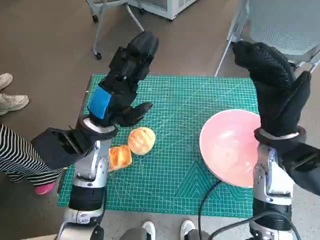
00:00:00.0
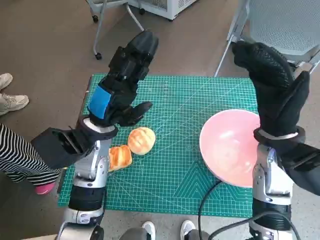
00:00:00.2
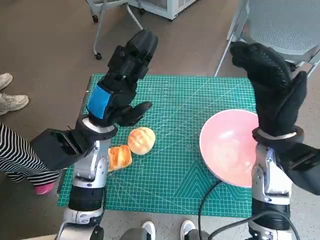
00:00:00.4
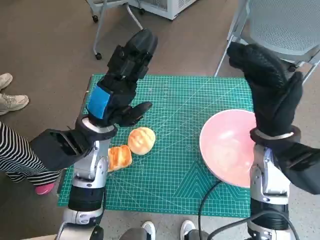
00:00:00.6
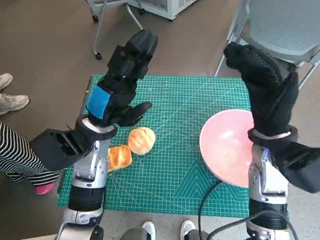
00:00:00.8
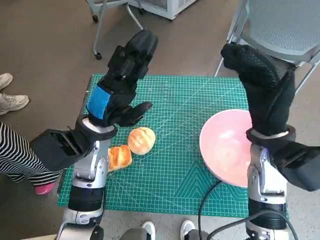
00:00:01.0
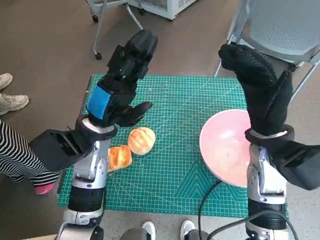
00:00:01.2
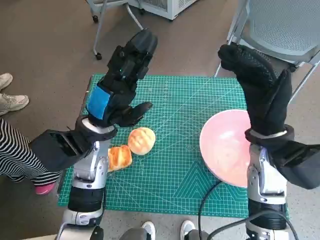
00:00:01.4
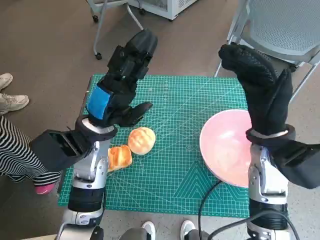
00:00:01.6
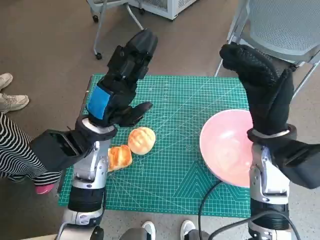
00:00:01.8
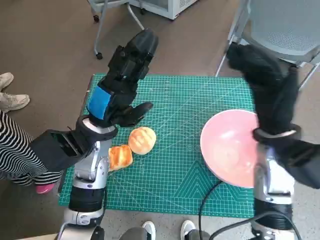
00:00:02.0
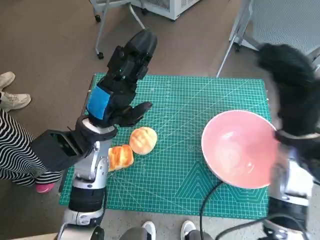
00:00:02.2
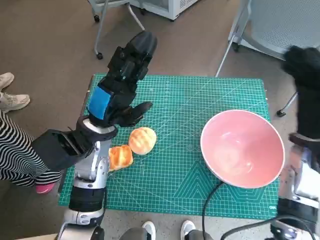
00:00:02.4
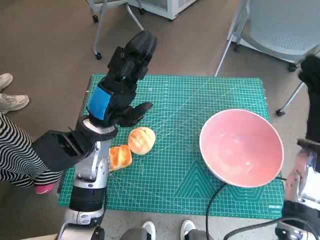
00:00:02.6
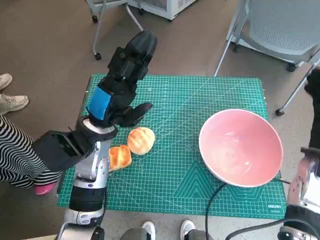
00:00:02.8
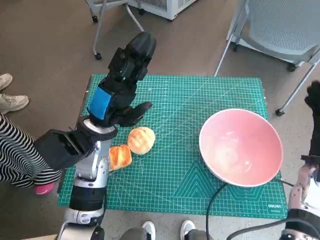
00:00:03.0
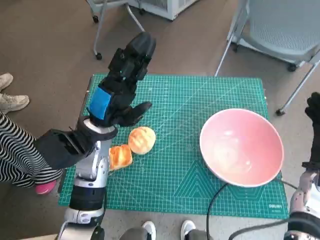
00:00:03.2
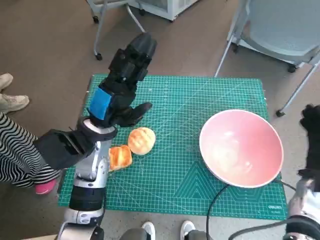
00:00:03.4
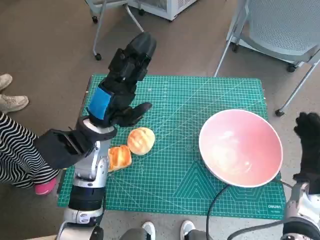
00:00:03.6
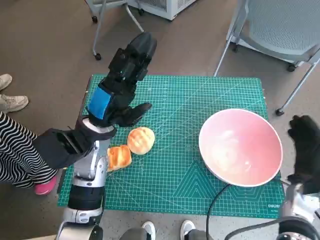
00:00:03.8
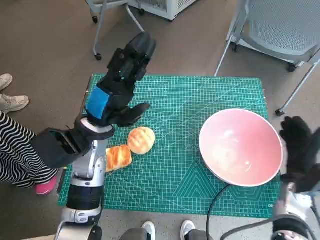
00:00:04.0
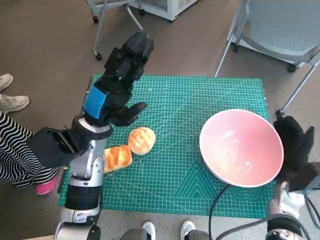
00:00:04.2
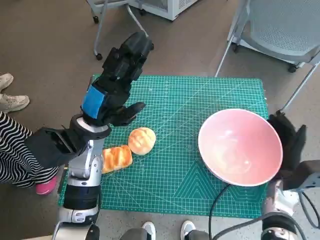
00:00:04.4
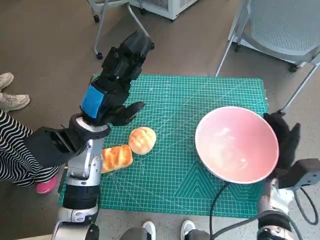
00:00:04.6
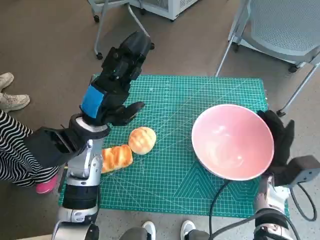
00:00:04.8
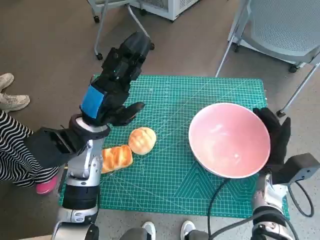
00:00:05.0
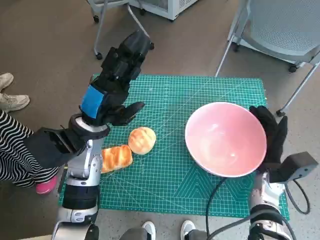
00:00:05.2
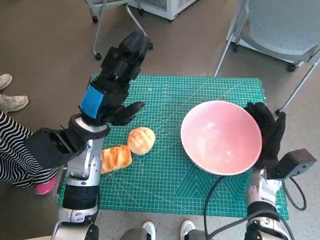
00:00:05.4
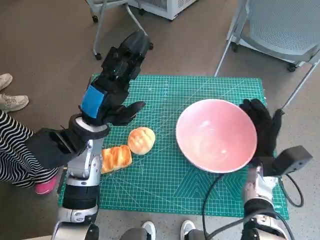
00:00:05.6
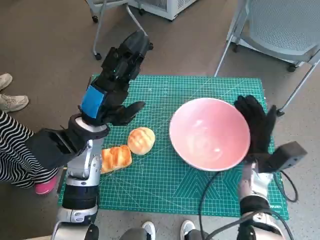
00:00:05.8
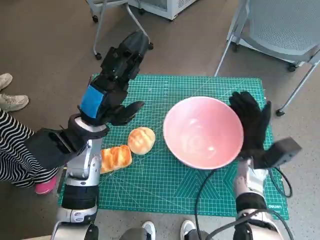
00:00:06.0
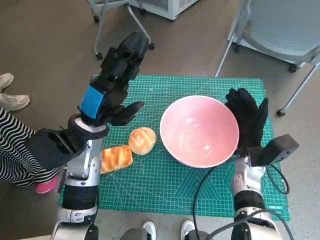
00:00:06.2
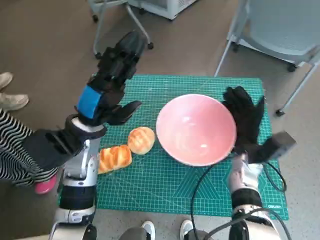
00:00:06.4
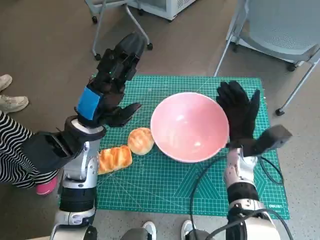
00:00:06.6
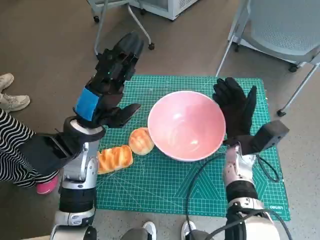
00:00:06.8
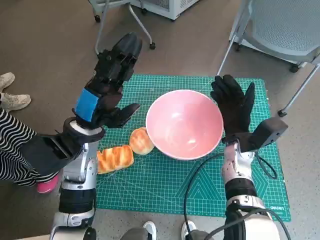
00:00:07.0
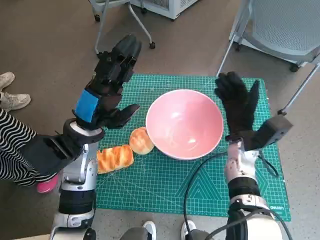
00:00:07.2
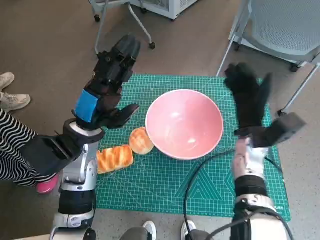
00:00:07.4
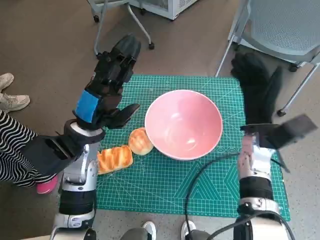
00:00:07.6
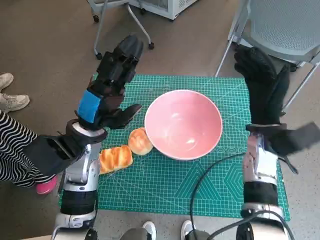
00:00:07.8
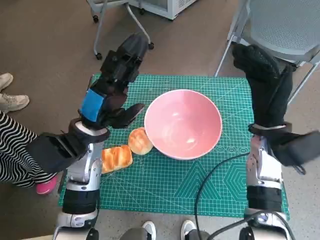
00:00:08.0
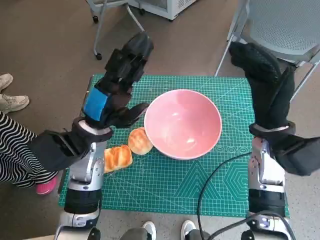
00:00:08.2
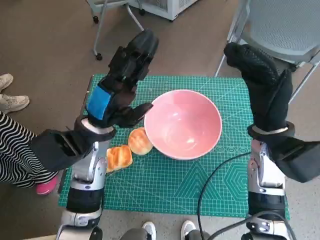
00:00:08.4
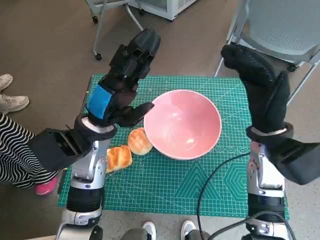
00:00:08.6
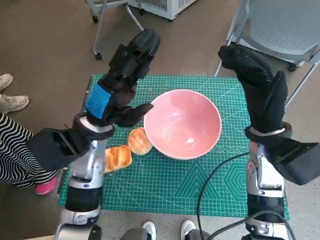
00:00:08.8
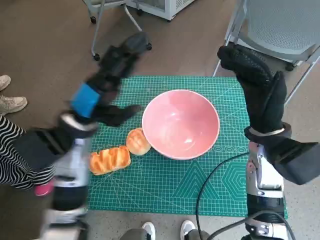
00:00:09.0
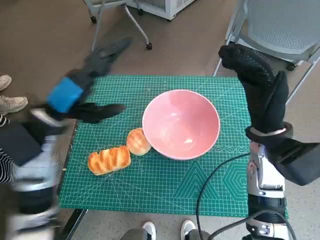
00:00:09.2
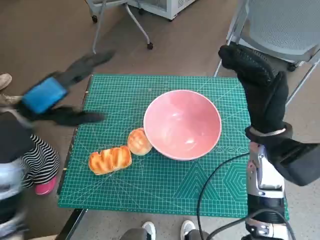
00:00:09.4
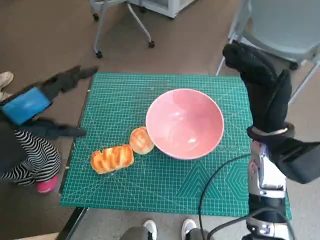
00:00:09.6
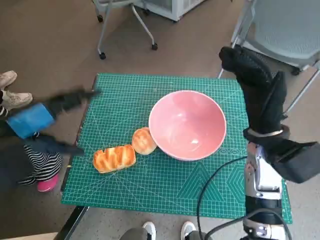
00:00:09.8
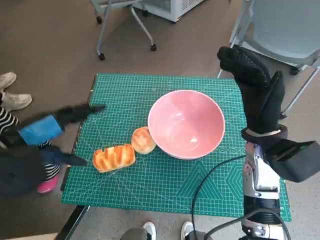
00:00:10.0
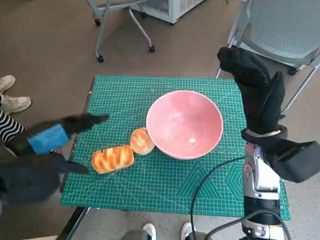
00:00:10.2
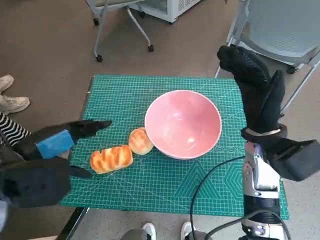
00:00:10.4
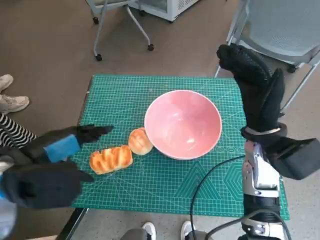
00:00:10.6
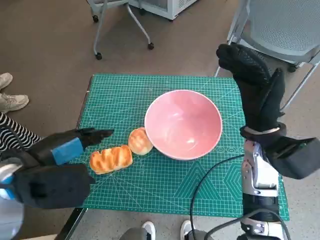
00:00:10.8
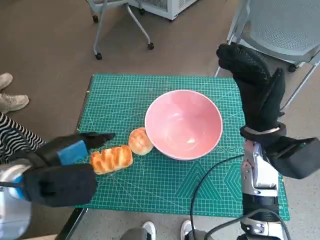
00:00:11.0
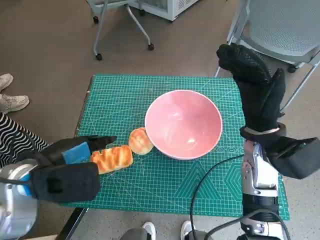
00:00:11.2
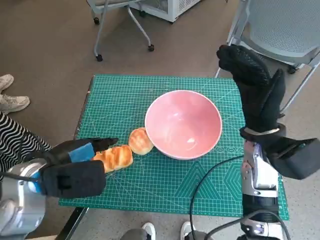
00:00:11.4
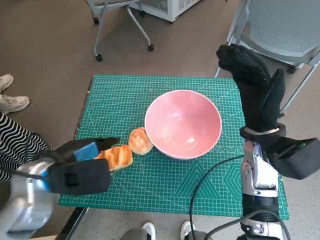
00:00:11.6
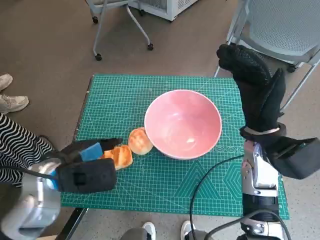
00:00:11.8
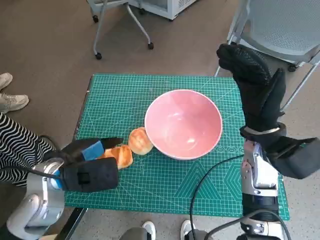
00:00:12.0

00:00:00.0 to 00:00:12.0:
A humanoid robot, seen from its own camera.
Task of the whole recording: Push the bowl into the center of the table and put the bread into the bowl.
Step, 00:00:00.0 to 00:00:07.4: Move the pink bowl to the center of table with right hand.
00:00:01.6 to 00:00:03.0: The right hand goes approximately 15 cm to the right and downward.
00:00:03.0 to 00:00:04.4: The right hand goes approximately 10 cm downward.
00:00:04.4 to 00:00:06.0: The right hand goes some 5 cm to the left.
00:00:06.0 to 00:00:07.6: The right hand is displaced upward by some 5 cm.
00:00:07.6 to 00:00:09.0: The right hand goes approximately 5 cm upward.
00:00:09.0 to 00:00:10.4: The left hand shifts some 15 cm backward, to the left and upward.
00:00:10.4 to 00:00:12.0: The left hand shifts about 10 cm downward.

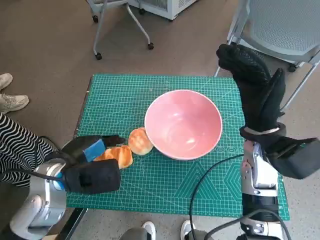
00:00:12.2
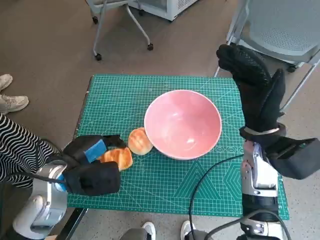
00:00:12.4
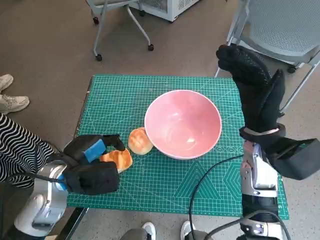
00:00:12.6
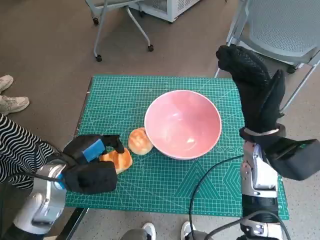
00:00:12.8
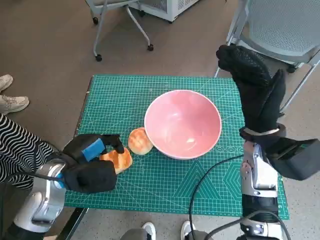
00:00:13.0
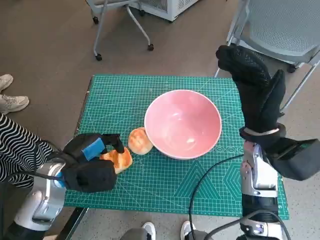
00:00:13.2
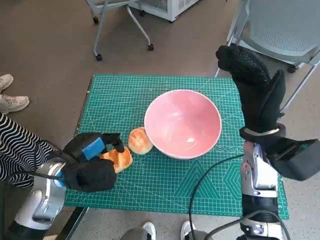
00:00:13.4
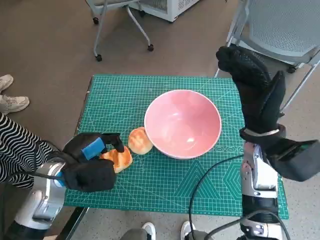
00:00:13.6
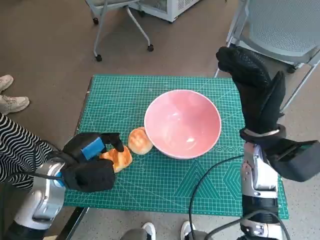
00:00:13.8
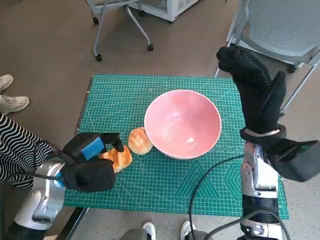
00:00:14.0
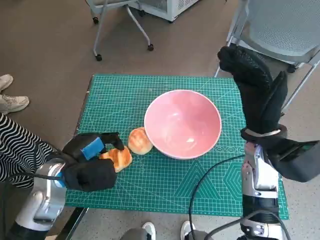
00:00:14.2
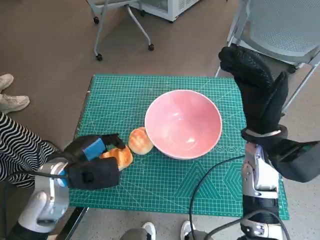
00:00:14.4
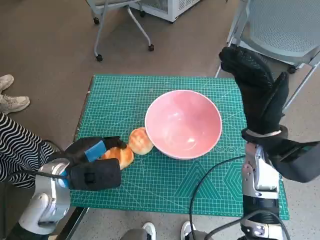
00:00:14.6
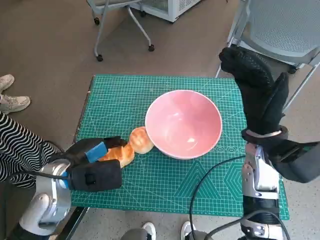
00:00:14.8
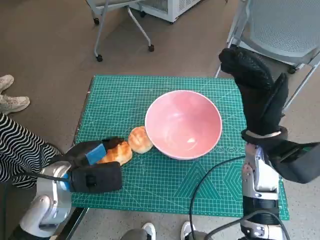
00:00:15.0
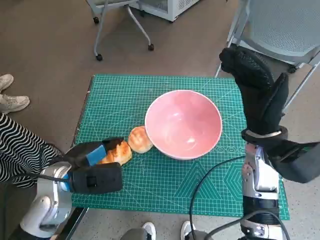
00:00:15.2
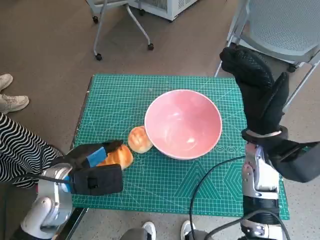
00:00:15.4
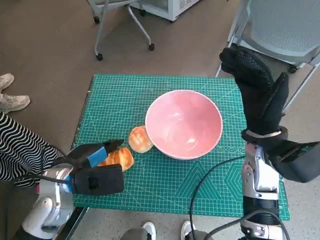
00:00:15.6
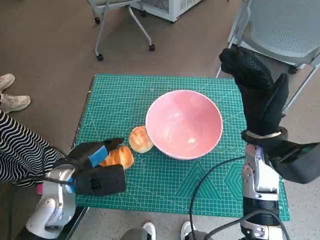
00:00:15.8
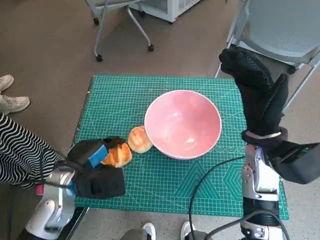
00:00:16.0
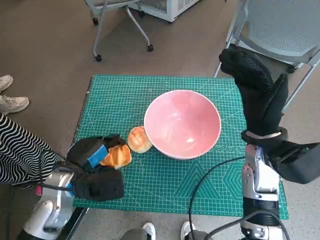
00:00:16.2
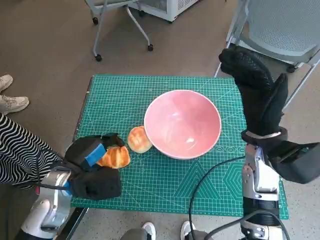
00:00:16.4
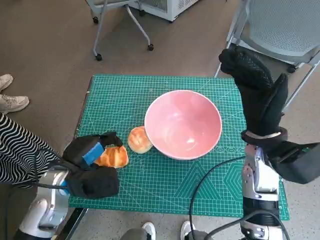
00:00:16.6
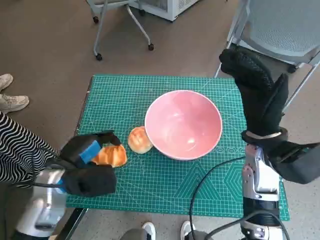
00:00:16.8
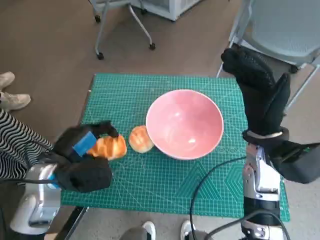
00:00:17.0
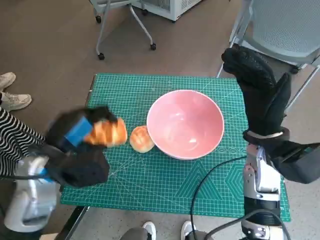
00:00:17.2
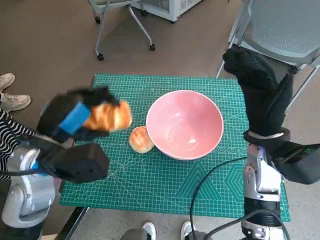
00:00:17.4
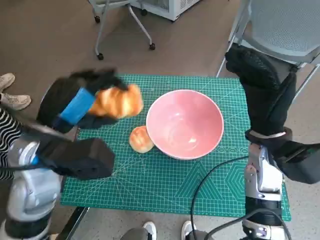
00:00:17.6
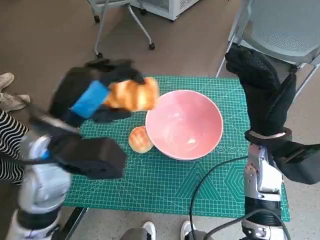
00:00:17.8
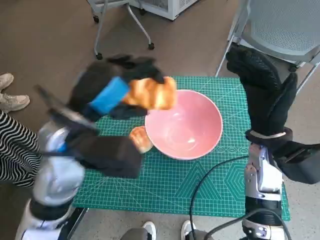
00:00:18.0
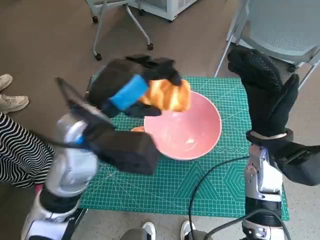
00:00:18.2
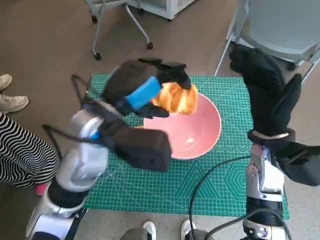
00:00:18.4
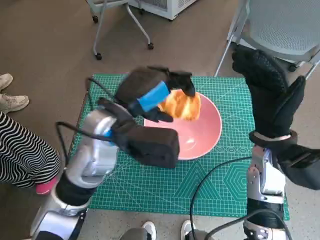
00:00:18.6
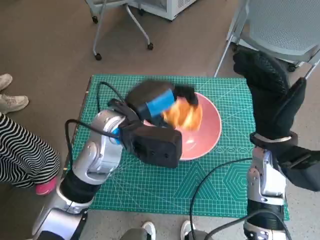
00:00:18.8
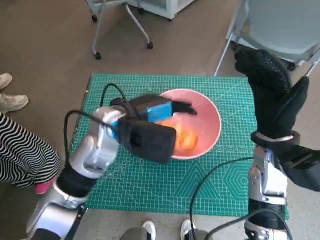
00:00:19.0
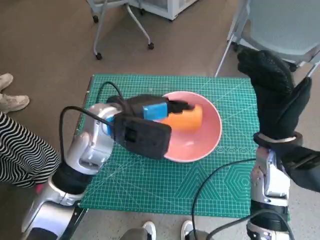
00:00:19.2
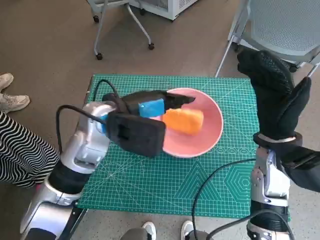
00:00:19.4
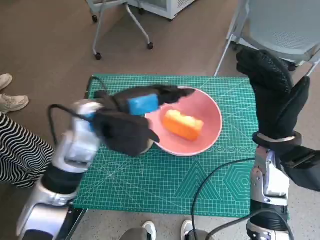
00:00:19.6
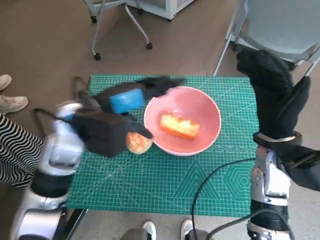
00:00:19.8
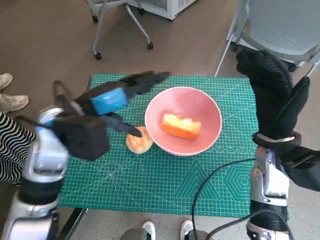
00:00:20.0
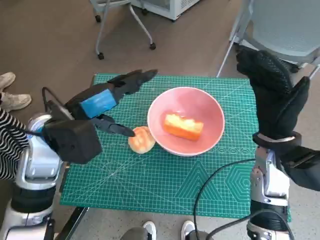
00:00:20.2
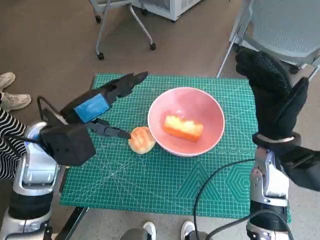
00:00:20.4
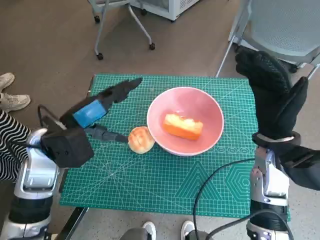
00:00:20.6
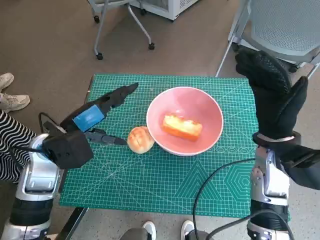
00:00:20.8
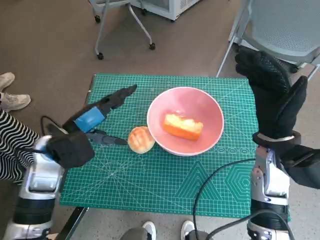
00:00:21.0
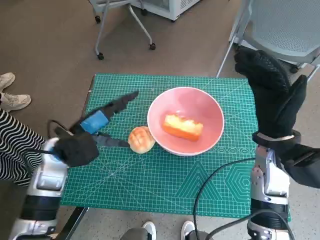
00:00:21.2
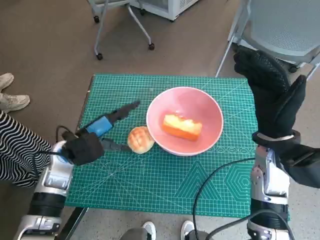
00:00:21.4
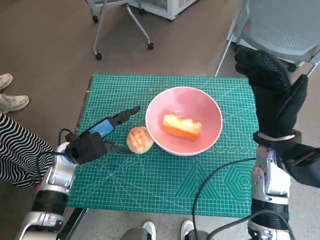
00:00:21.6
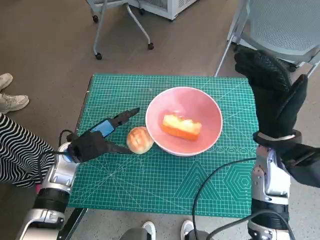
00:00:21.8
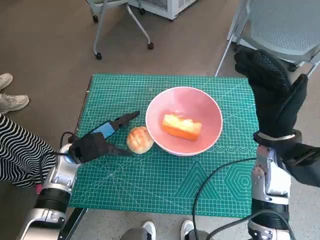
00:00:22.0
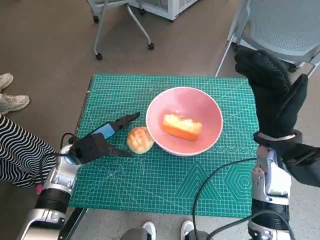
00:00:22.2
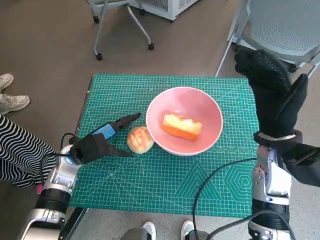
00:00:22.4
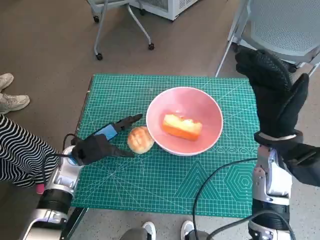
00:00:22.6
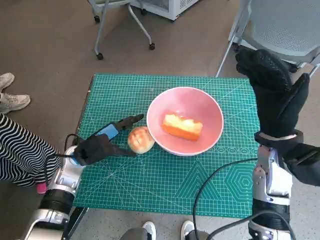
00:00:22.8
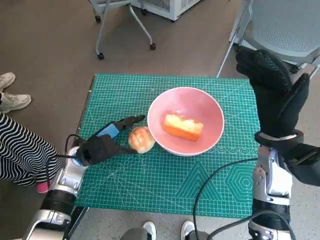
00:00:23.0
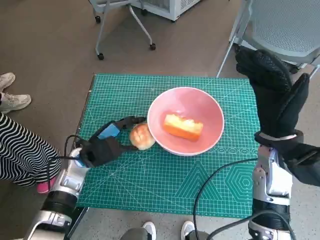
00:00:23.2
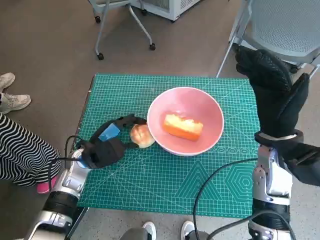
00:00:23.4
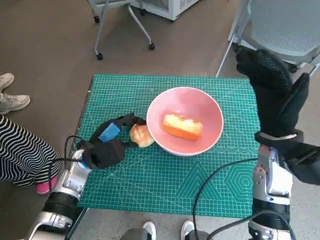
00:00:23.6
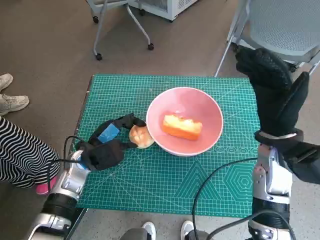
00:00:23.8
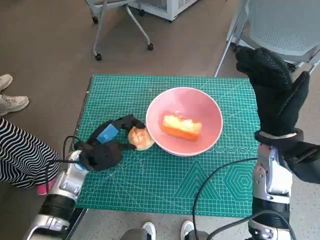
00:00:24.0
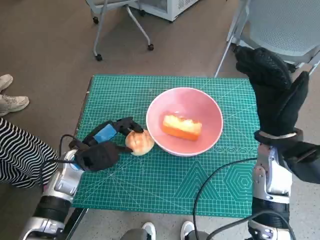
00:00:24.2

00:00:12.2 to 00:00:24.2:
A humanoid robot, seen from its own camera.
Task of the whole recording: Push the bowl into the center of the table and put the bread into the bowl.
Step, 00:00:12.2 to 00:00:16.8: Grasp the long bread with left hand.
Step, 00:00:17.0 to 00:00:19.4: Place the long bread in pink bowl with left hand.
00:00:12.2 to 00:00:16.6: The hands make only small movements.
00:00:16.6 to 00:00:18.2: The left hand heads upward and to the right, covering about 15 cm.
00:00:18.2 to 00:00:19.8: The left hand changes place by approximately 5 cm.
00:00:19.8 to 00:00:21.2: The left hand moves downward and to the left, approximately 10 cm.
00:00:21.2 to 00:00:22.6: The left hand travels downward by approximately 5 cm.
00:00:22.6 to 00:00:24.2: The hands stay close to where they were, moving slightly.
